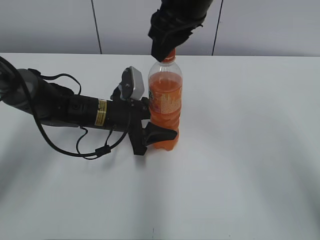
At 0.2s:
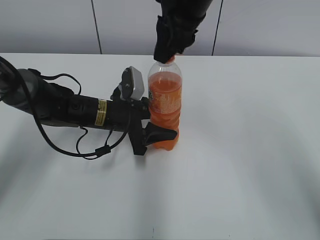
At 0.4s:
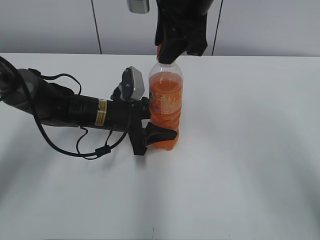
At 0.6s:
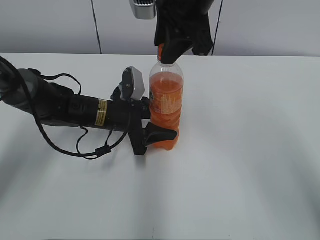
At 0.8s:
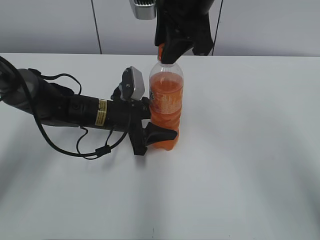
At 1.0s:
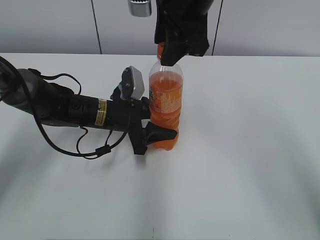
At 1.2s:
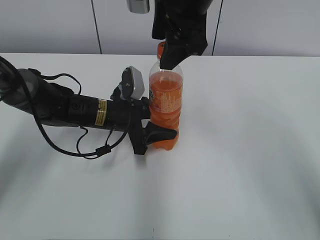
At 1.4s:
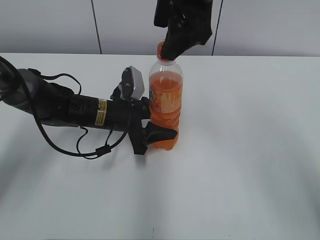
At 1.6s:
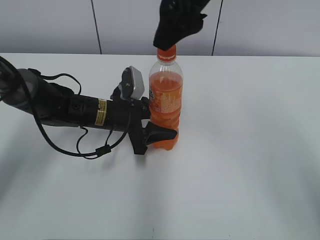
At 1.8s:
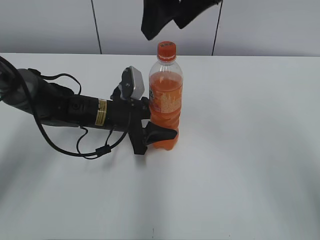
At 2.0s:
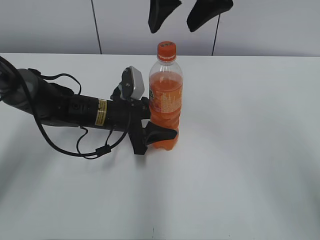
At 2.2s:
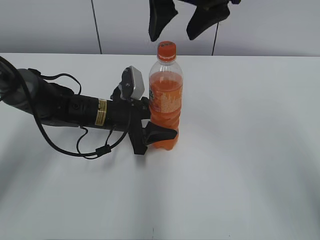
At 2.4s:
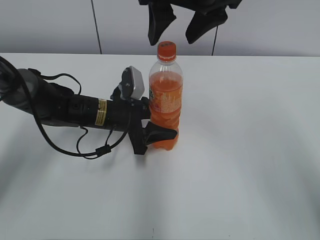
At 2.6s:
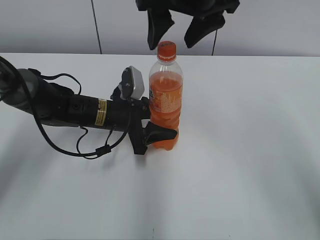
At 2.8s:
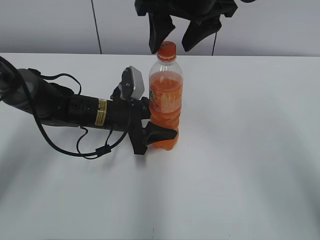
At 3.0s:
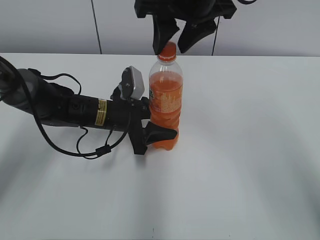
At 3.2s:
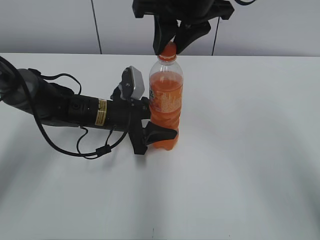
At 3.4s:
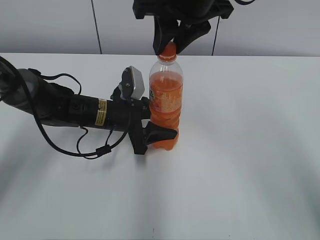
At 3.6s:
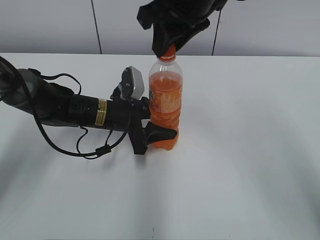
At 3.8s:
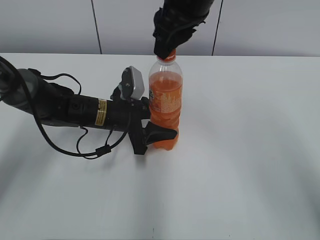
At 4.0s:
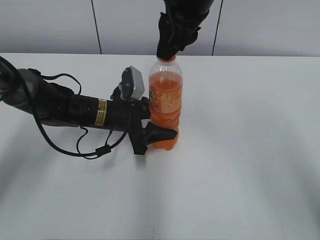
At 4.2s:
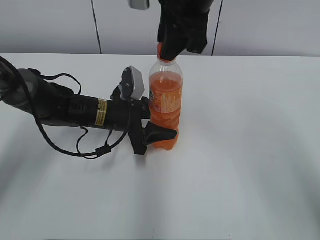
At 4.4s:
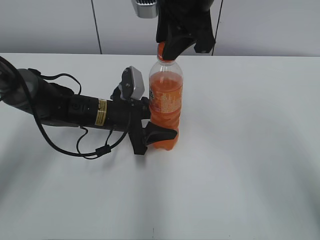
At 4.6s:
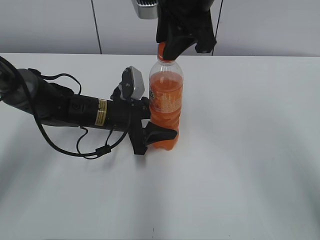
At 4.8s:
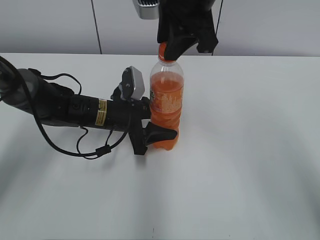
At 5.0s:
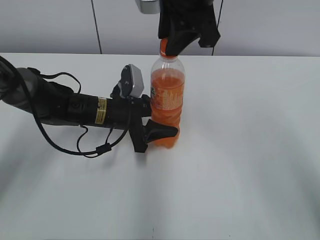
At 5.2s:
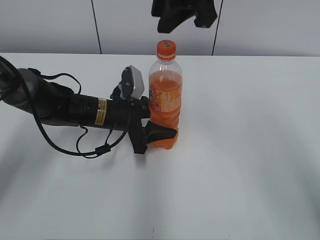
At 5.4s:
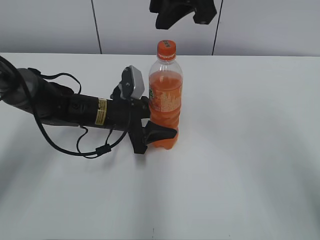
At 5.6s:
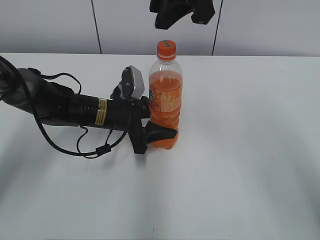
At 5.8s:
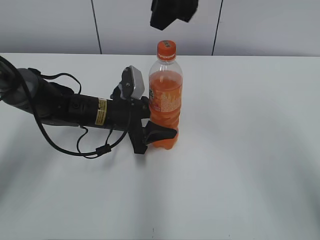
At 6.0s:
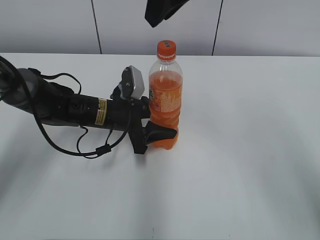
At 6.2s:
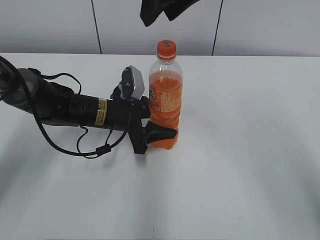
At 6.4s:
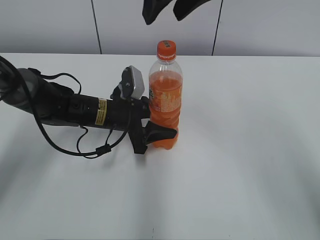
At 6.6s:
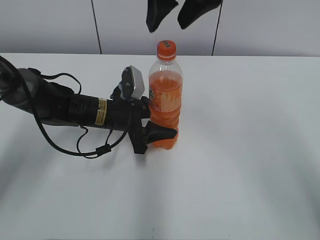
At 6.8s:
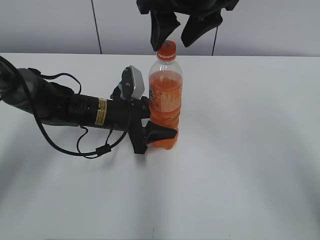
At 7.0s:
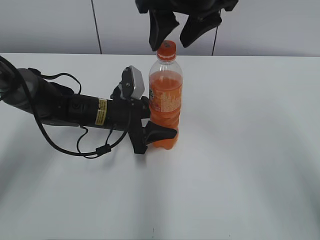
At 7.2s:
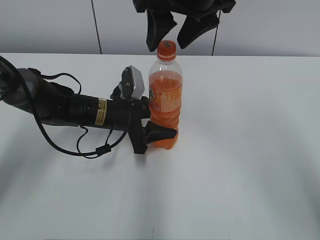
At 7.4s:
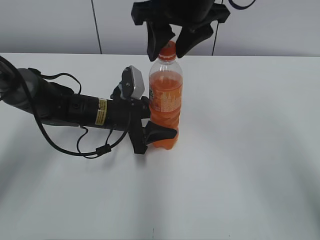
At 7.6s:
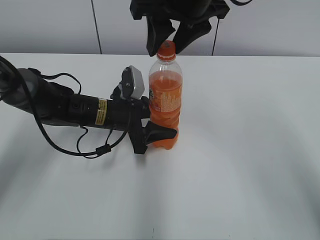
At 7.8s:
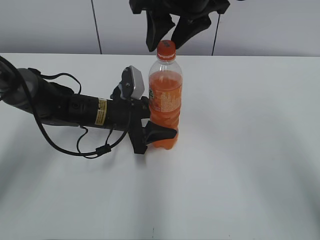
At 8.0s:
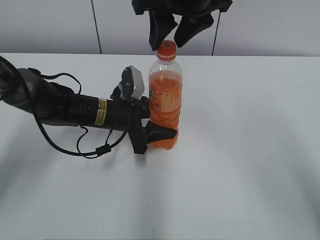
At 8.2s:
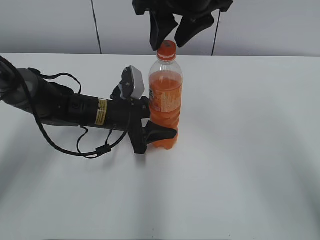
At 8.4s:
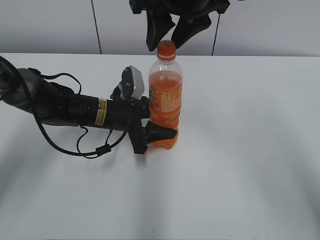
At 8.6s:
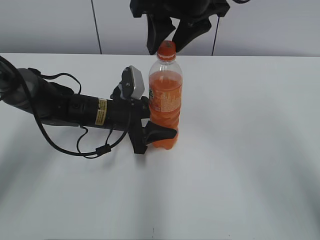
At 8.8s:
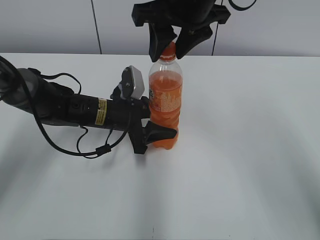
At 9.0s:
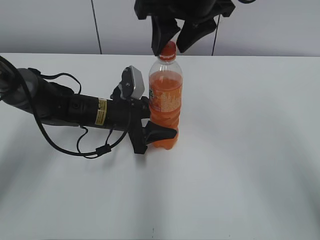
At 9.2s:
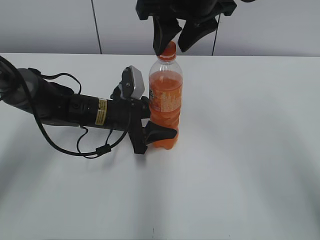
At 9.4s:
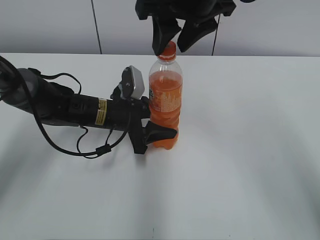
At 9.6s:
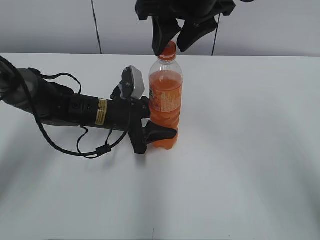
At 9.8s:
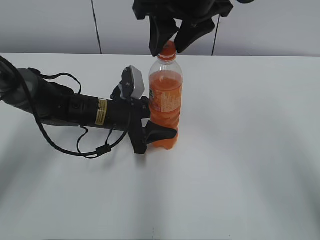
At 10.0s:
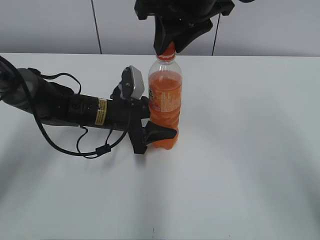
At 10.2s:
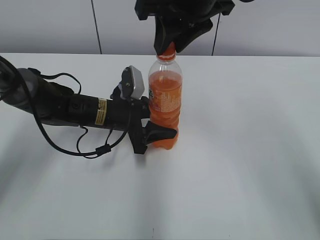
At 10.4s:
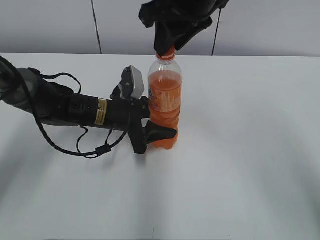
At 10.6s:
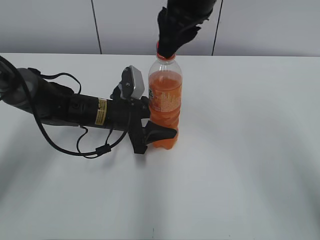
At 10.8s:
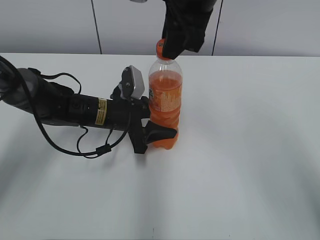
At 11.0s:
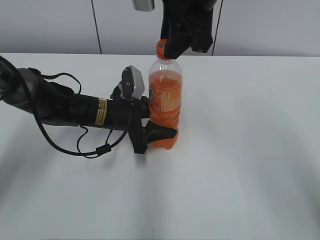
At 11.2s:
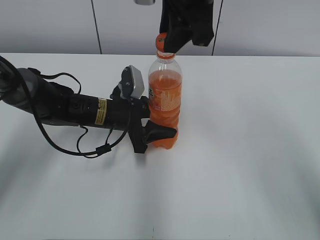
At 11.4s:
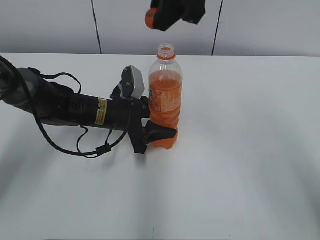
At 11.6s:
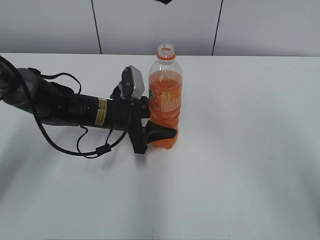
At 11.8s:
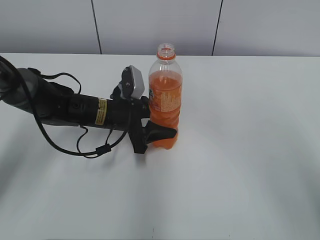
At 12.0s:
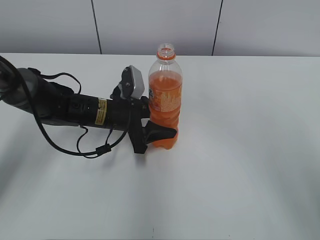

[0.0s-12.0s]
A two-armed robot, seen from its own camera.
0.0s to 1.6s: The right gripper opens up.
1.6s to 3.0s: The right gripper closes its fingers.
3.0s to 4.4s: The right gripper closes up.
6.0s to 7.6s: The right gripper opens its fingers.
7.6s to 9.0s: Neither gripper changes place.
9.0s to 10.4s: The right gripper closes.
10.4s to 12.0s: The right gripper travels upward by about 10 cm.

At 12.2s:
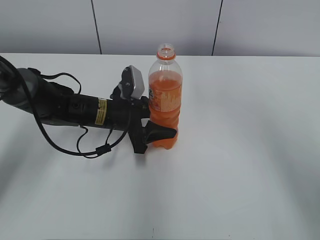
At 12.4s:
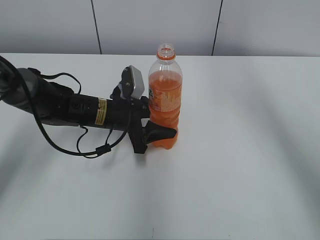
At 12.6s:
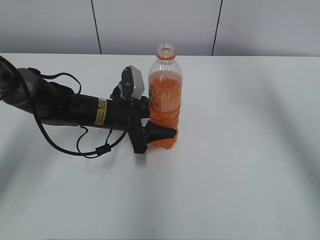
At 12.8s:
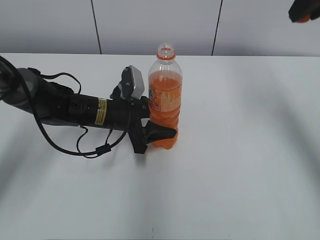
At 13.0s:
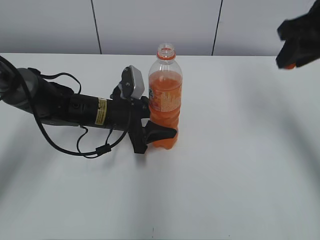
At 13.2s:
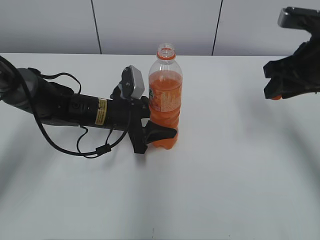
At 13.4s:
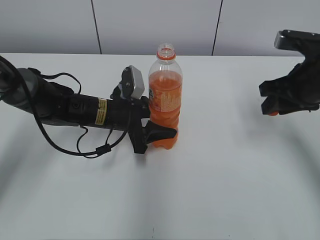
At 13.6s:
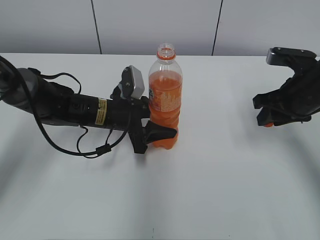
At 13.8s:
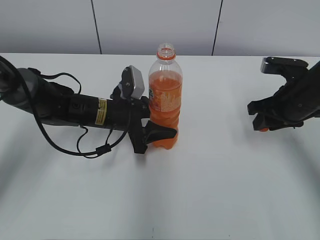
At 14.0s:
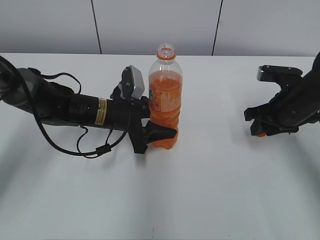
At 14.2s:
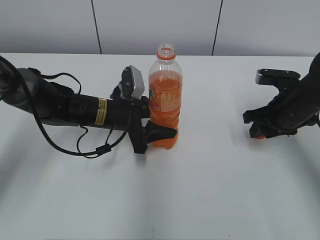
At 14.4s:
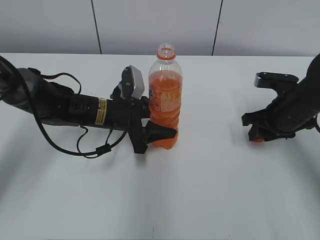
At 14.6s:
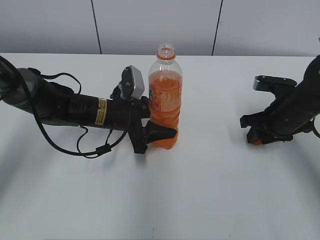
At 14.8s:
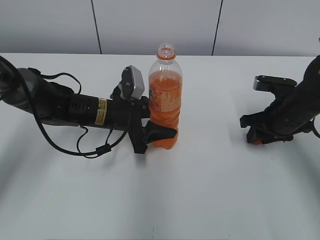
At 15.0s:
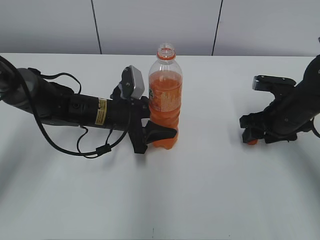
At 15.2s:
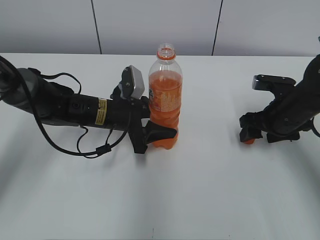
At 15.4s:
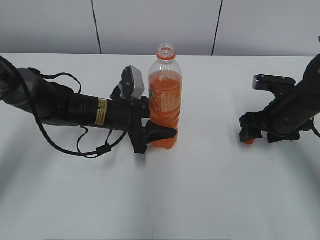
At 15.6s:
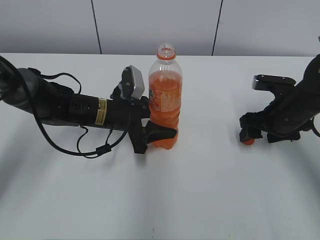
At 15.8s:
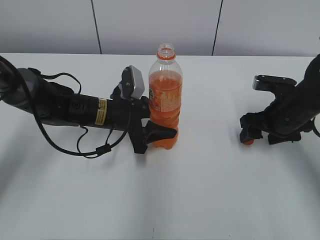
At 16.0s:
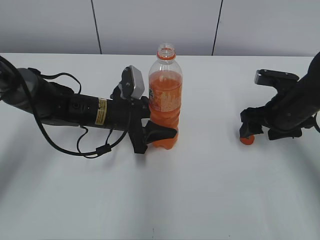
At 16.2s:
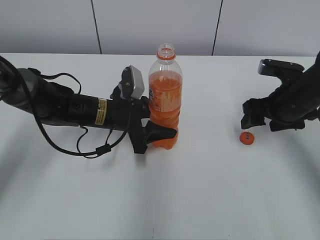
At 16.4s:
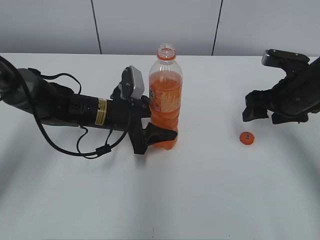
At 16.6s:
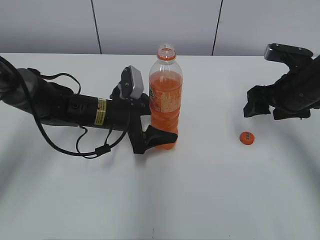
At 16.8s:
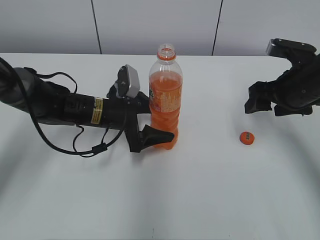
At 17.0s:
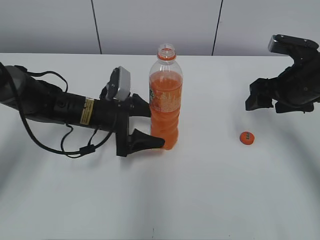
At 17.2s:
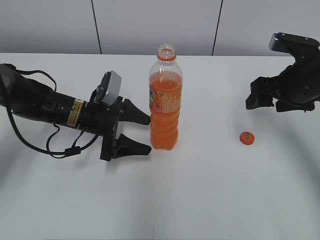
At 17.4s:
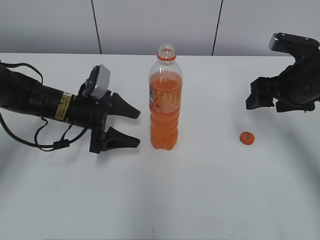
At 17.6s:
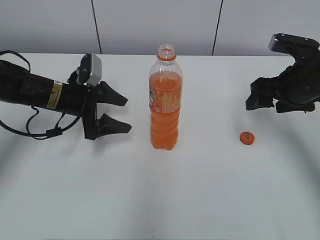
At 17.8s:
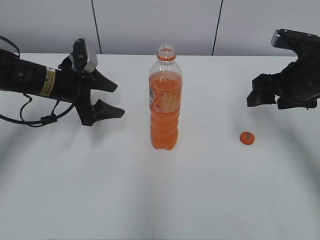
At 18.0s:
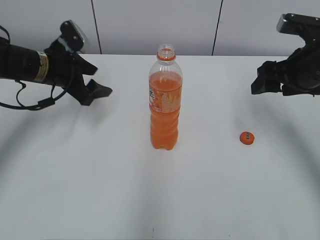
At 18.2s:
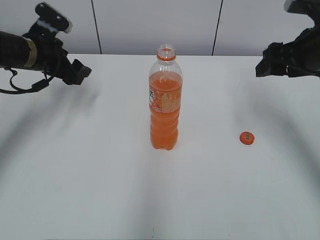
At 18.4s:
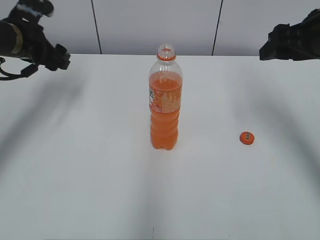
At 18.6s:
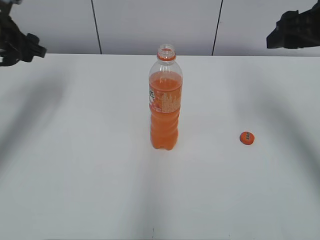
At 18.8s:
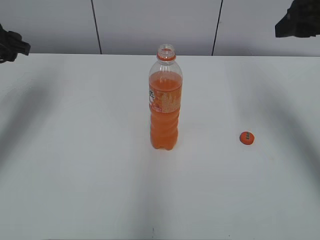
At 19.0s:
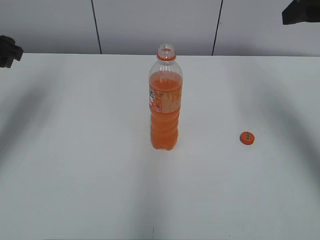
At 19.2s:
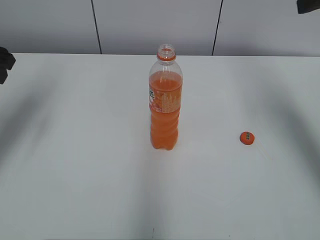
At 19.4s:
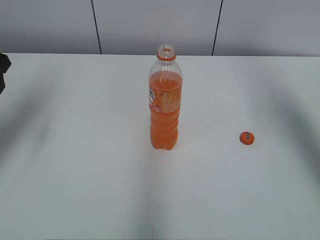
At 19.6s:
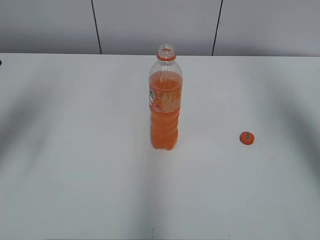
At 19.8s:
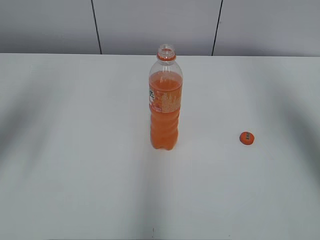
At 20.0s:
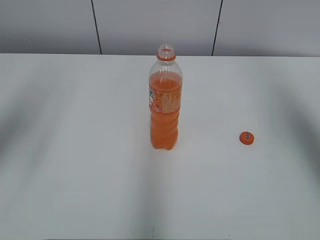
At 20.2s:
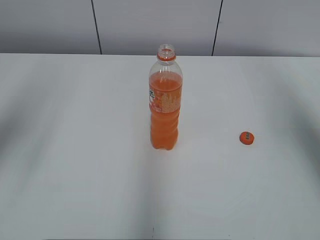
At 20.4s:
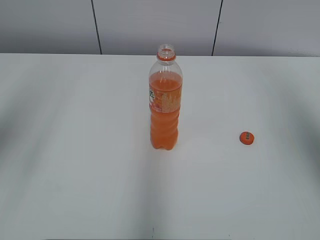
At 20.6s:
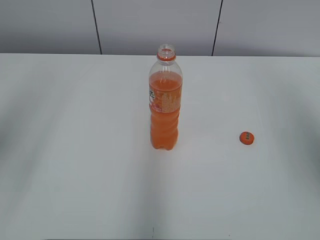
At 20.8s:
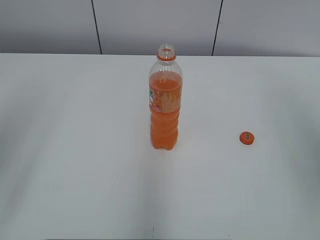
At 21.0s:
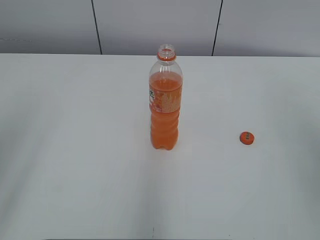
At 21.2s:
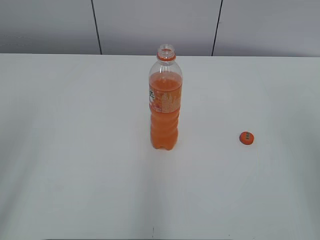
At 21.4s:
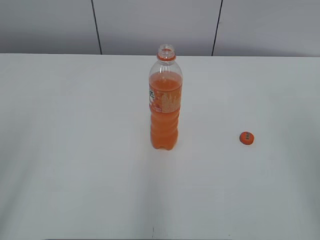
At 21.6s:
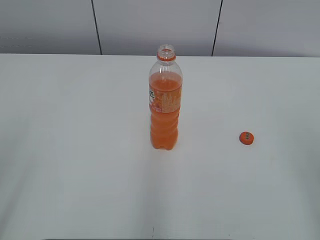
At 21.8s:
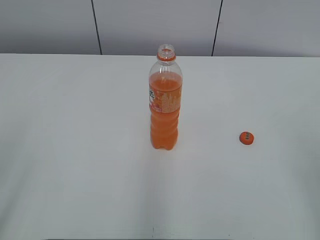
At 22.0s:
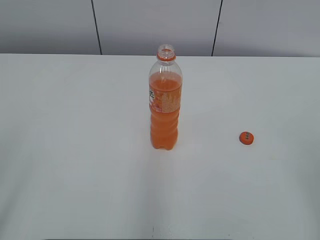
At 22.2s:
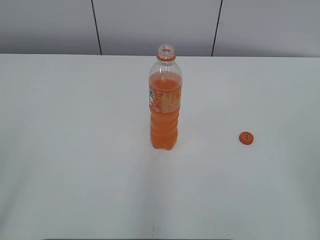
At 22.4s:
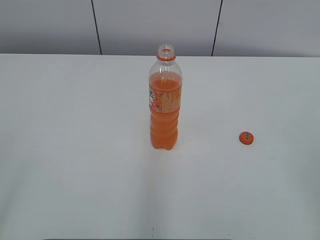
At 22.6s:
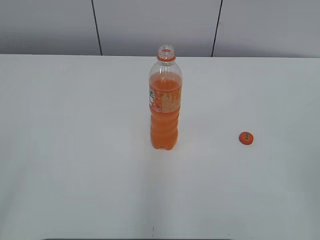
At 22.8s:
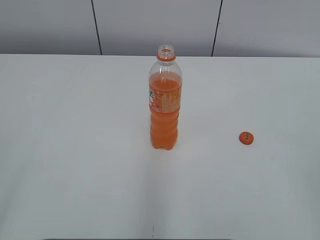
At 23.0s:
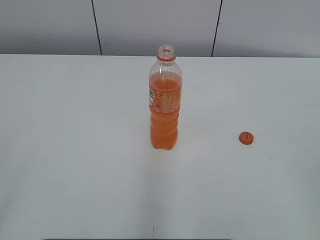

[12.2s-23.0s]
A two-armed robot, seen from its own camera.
Step, 12.2s to 15.4s: Place the bottle cap on the right.
12.2s to 13.8s: The right gripper is displaced downward by some 30 cm.
13.8s to 15.2s: The right gripper opens its fingers.
15.2s to 16.8s: The right gripper moves upward, some 5 cm. The left gripper opens up.
16.8s to 18.4s: The left gripper travels to the left and upward by some 20 cm, while the right gripper heads upward, covering some 10 cm.
18.4s to 20.0s: The right gripper shifts roughly 15 cm upward and backward; the left gripper shifts about 20 cm backward and upward.
20.0s to 21.4s: The right gripper goes roughly 20 cm backward and downward, while the left gripper is displaced backward by about 15 cm.
